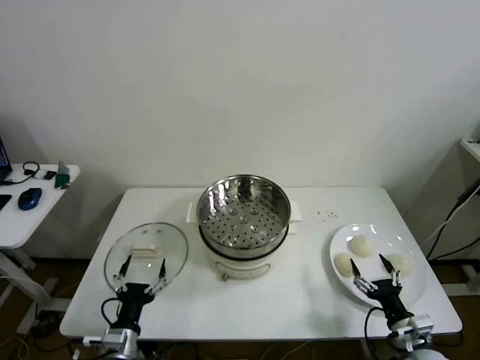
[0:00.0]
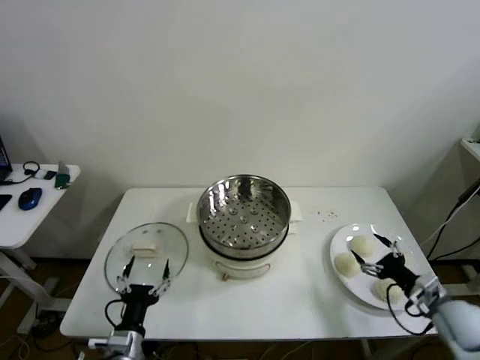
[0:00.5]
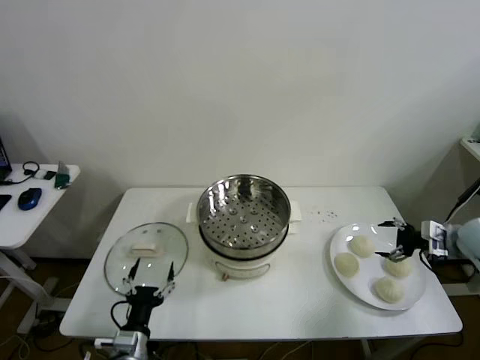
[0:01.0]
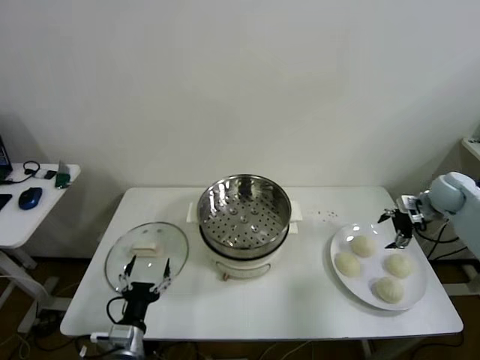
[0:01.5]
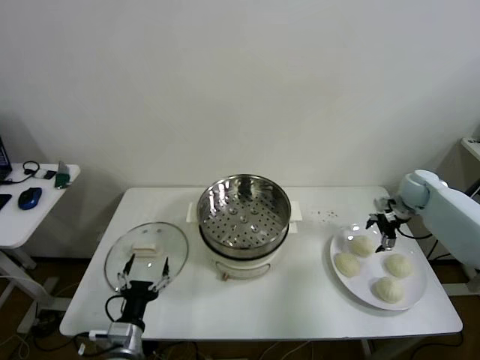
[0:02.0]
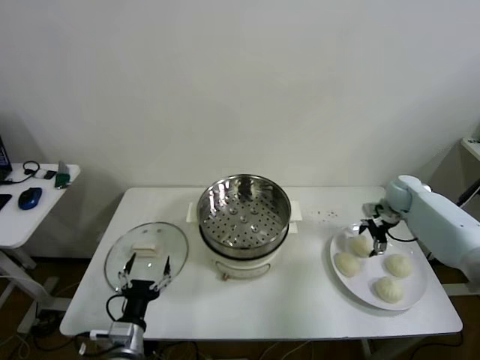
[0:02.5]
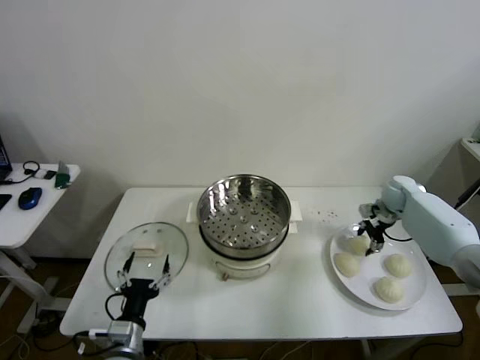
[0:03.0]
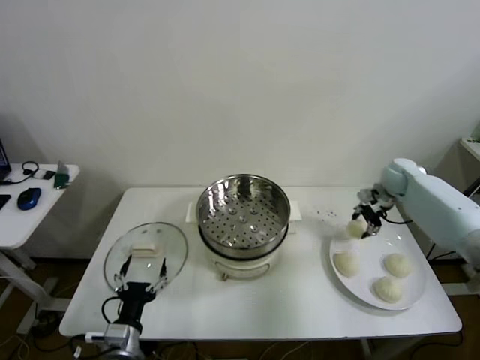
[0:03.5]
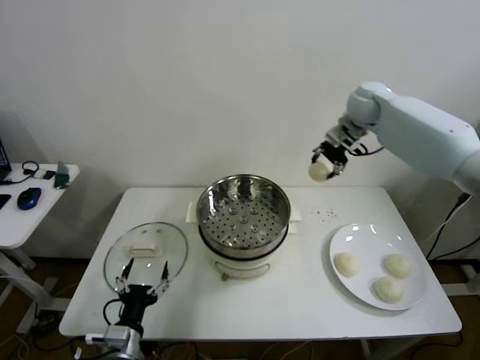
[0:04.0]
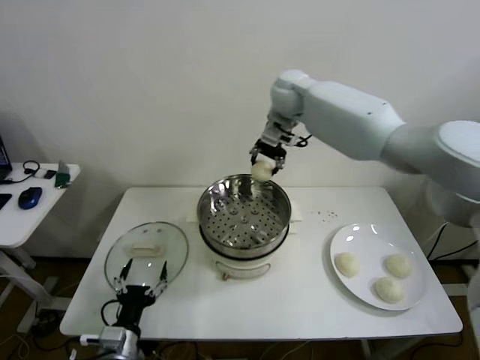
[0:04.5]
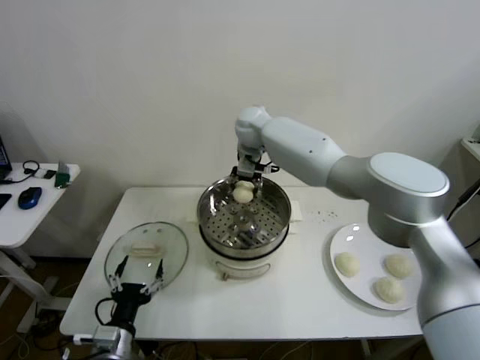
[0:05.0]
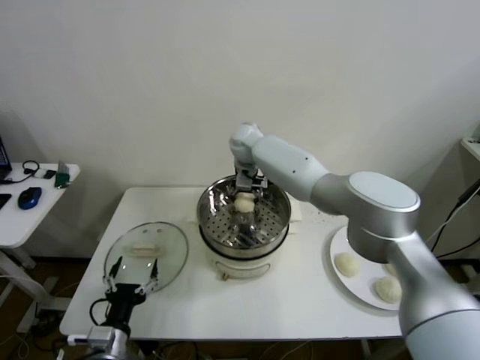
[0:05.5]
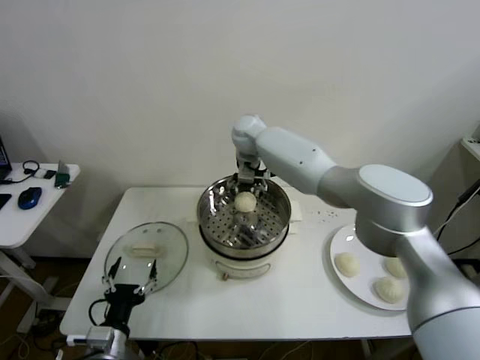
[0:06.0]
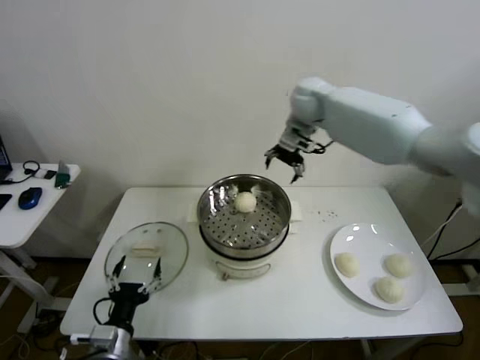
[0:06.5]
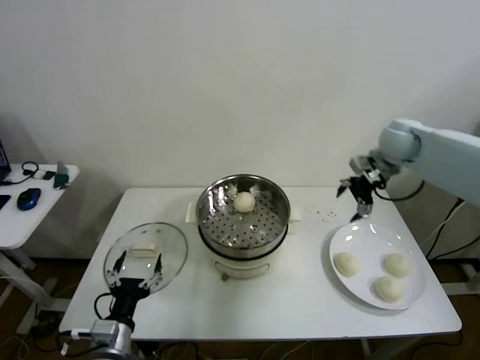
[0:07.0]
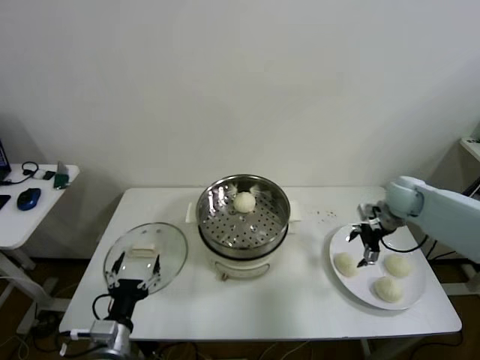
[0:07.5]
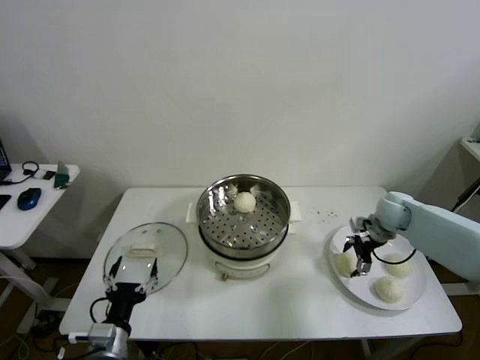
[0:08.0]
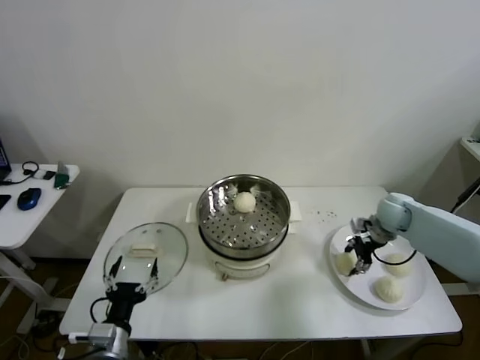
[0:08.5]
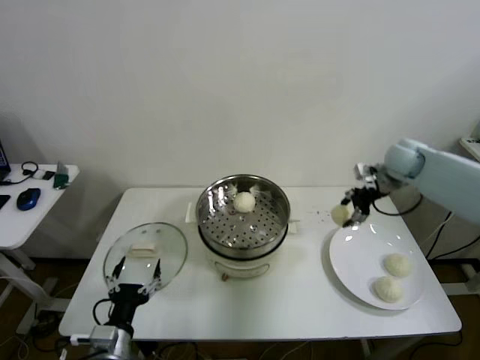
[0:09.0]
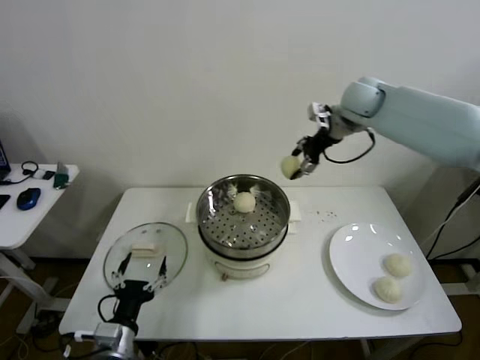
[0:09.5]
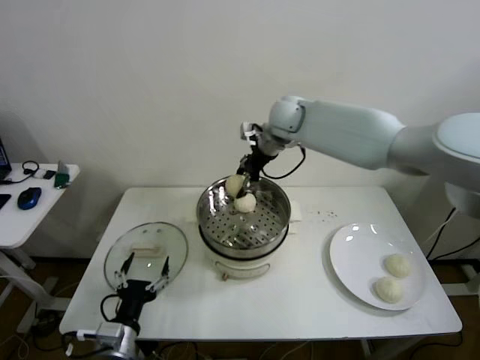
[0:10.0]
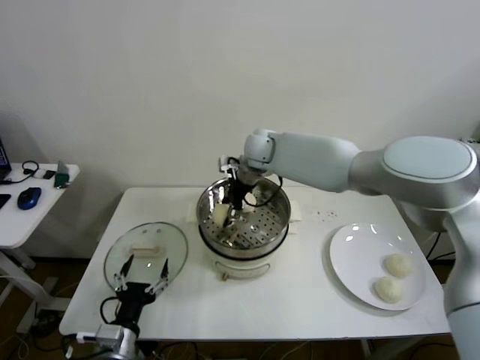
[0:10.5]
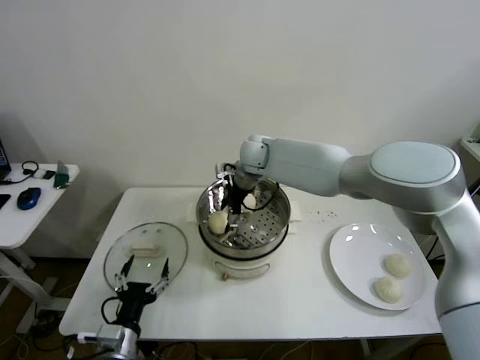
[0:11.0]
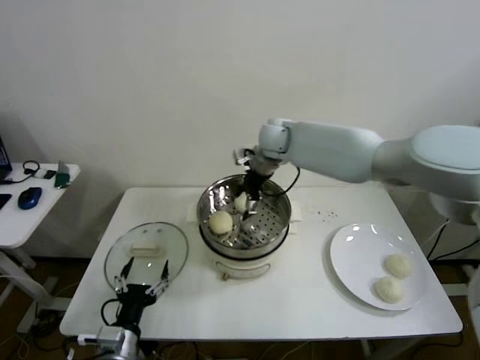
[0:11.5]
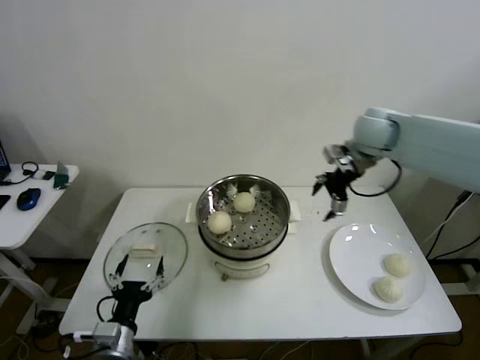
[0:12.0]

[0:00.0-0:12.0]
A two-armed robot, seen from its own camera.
Step, 0.0 to 3.0 s: Grasp the baozi in the plate with right gripper.
Step, 3.5 to 5.5 s: Place the baozi on the steamer with right gripper.
Step, 6.0 to 8.0 s: Grasp the baozi in the plate with right gripper.
Step, 8.5 to 11.0 s: Place the baozi on the steamer with right gripper.
2.0 to 4.0 s: The right gripper is displaced upward and to the left by some 25 cm, and closes up.
4.0 to 6.0 s: The right gripper heads to the left, covering some 25 cm, and opens up.
6.0 to 8.0 s: The right gripper shifts some 40 cm to the right and downward.
8.0 to 10.0 s: The right gripper is displaced to the left and upward by about 35 cm, and closes its fingers.
10.0 to 12.0 s: The right gripper goes about 15 cm to the right, and opens.

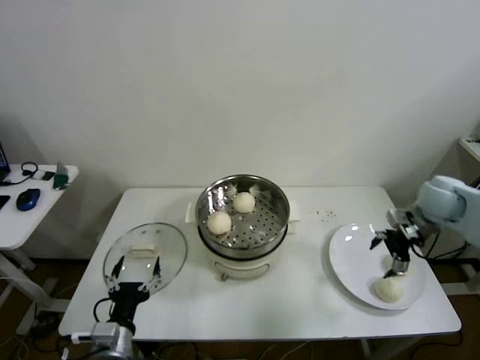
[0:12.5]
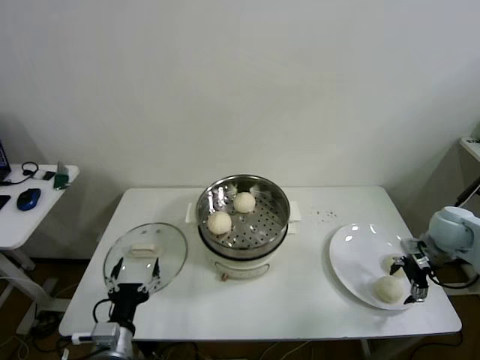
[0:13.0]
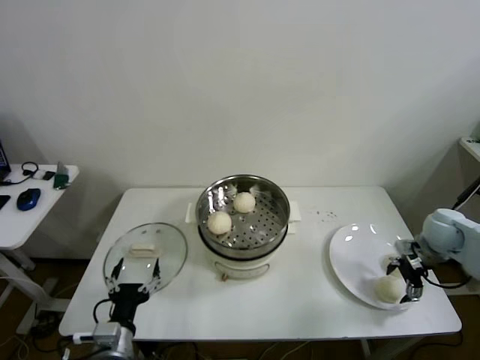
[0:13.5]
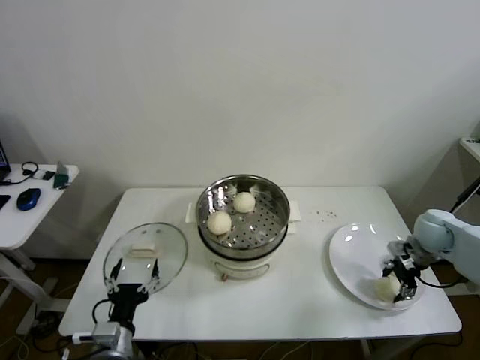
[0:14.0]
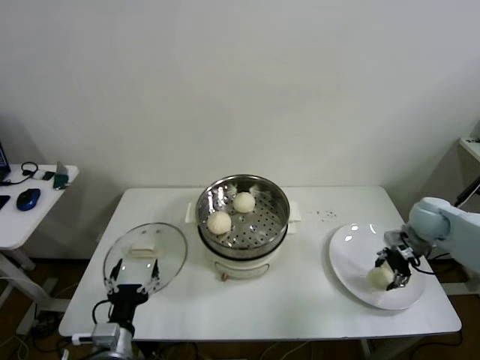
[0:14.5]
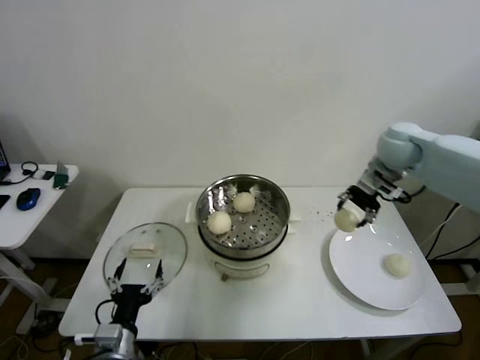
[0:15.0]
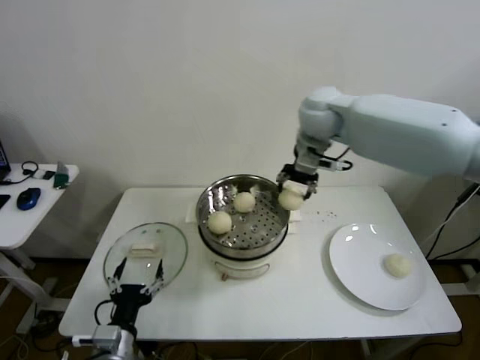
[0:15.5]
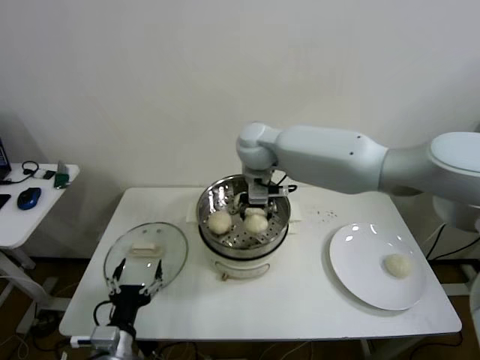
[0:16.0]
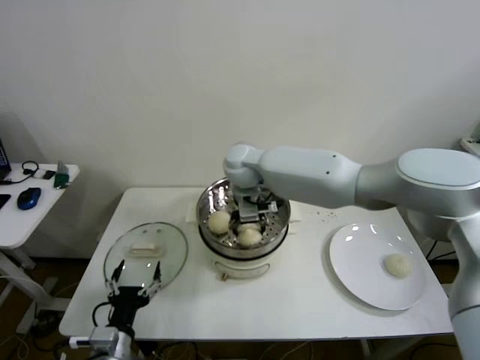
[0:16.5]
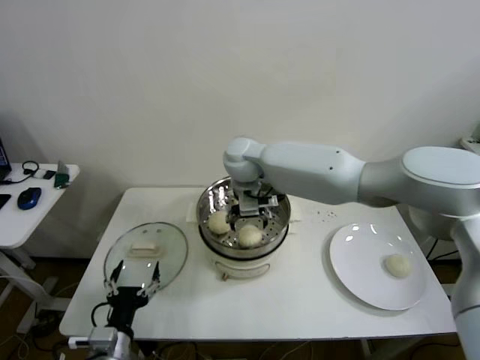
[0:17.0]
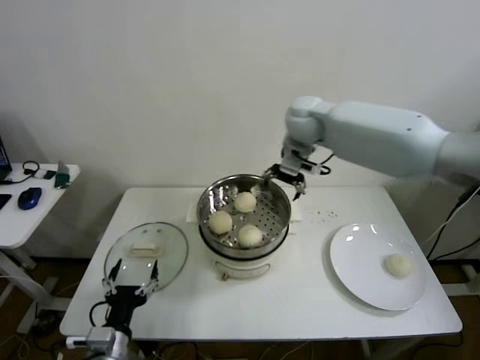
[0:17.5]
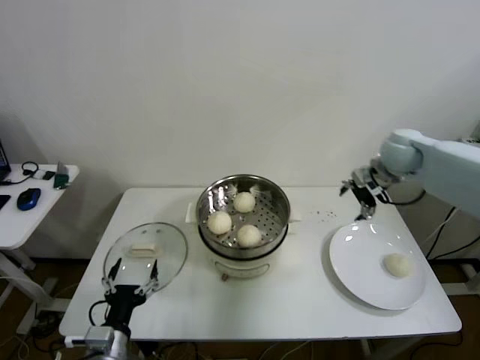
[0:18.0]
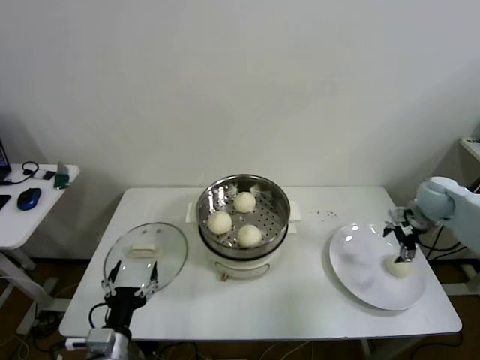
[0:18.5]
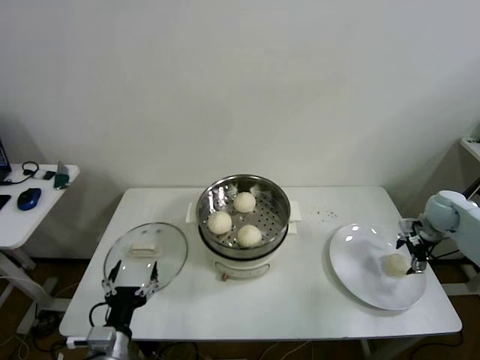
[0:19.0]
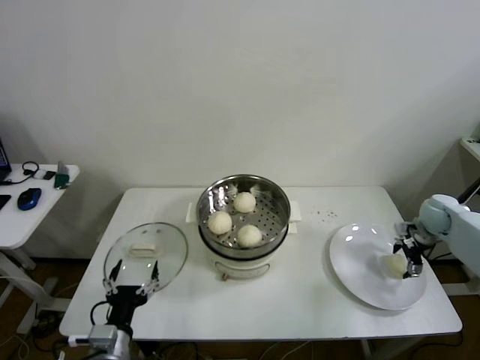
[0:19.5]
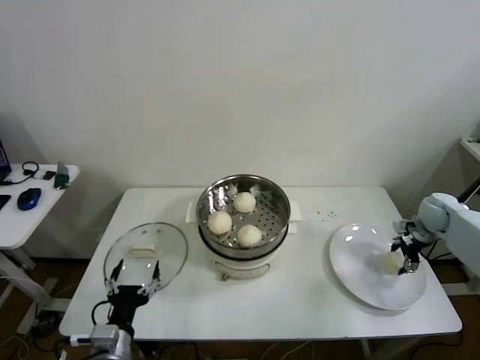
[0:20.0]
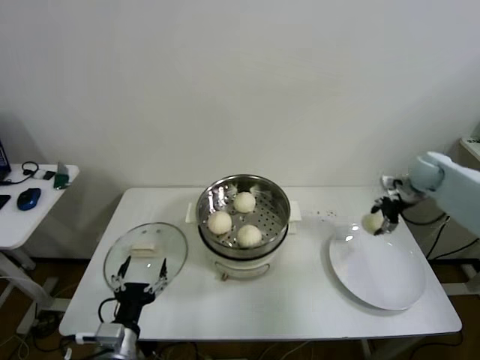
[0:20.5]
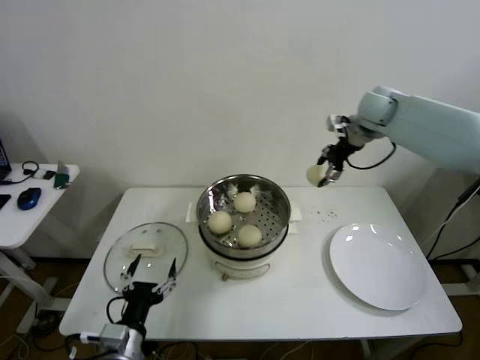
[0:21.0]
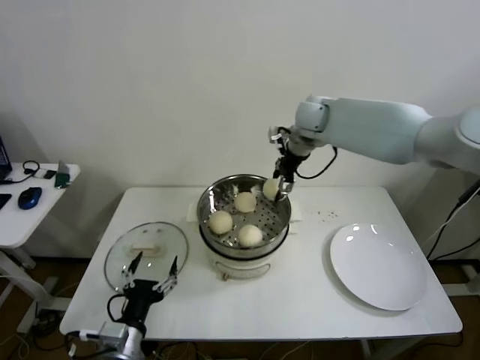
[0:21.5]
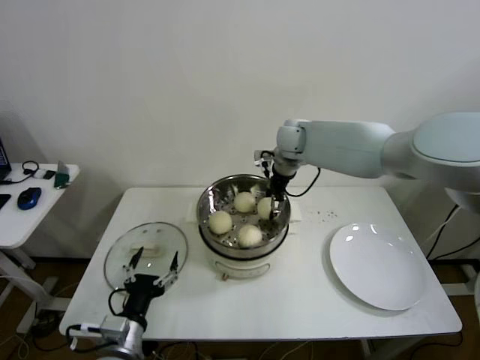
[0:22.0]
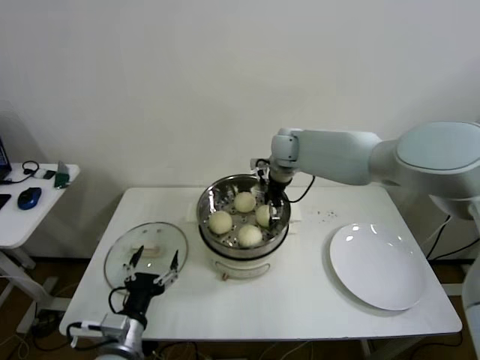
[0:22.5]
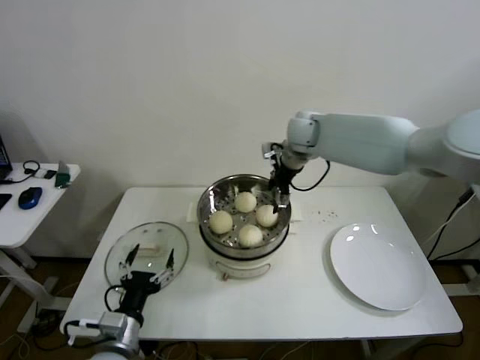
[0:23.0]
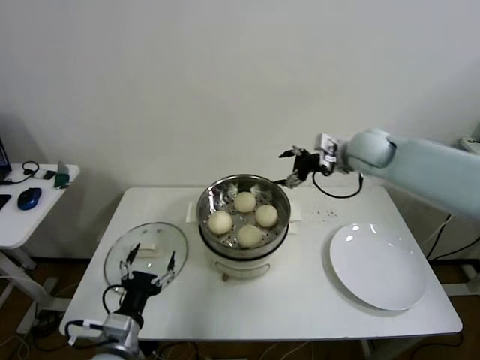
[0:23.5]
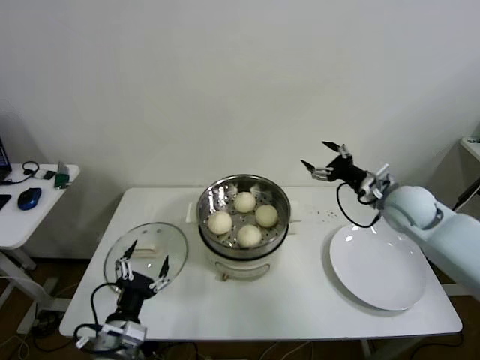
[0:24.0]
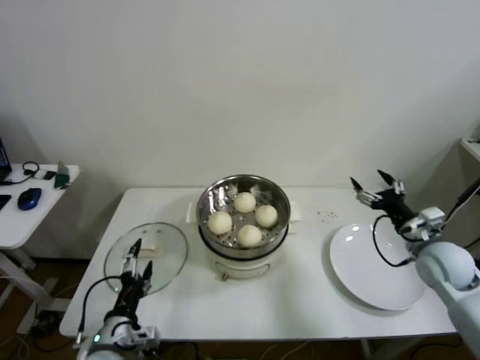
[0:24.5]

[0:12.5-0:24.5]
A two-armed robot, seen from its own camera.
Step, 12.5 to 14.0 s: Grasp the baozi in the plate with right gripper.
Step, 14.5 to 16.5 s: Place the baozi on the steamer with right gripper.
Step, 17.0 to 19.5 s: Grasp the baozi in the plate with right gripper.
Step, 20.0 to 22.5 s: Place the baozi on the steamer with right gripper.
12.5 to 14.5 s: The right gripper heads downward, covering about 10 cm, and closes up.
14.5 to 16.5 s: The right gripper goes roughly 50 cm to the left.
16.5 to 18.5 s: The right gripper travels to the right by roughly 50 cm, and opens its fingers.
18.5 to 20.5 s: The right gripper is displaced forward by roughly 5 cm, moves about 5 cm downward and comes back, and closes its fingers.
20.5 to 22.5 s: The right gripper heads to the left, covering roughly 35 cm, and opens its fingers.
22.5 to 24.5 s: The right gripper is displaced to the right and backward by about 40 cm.

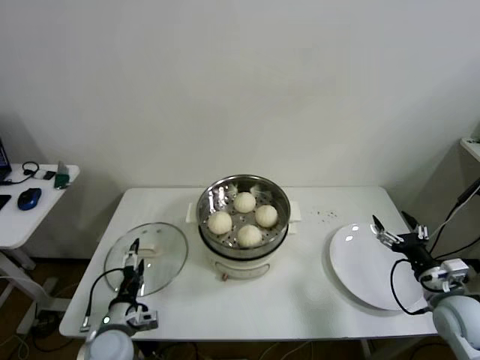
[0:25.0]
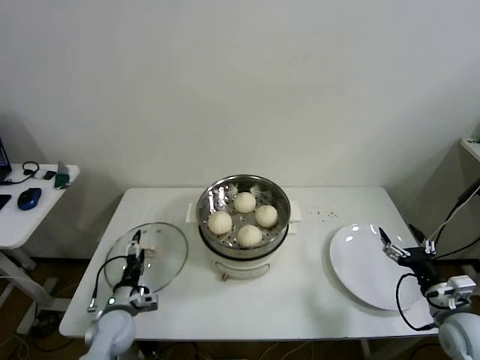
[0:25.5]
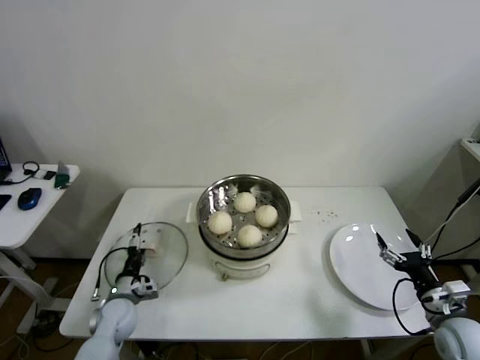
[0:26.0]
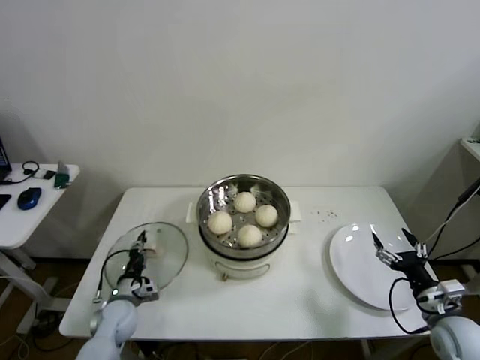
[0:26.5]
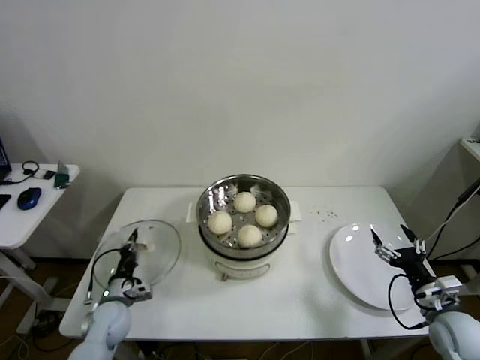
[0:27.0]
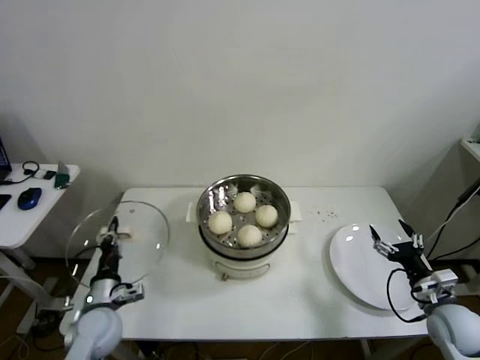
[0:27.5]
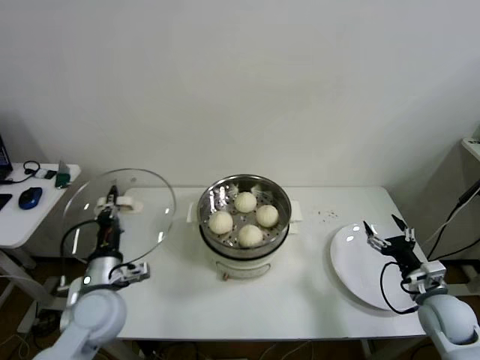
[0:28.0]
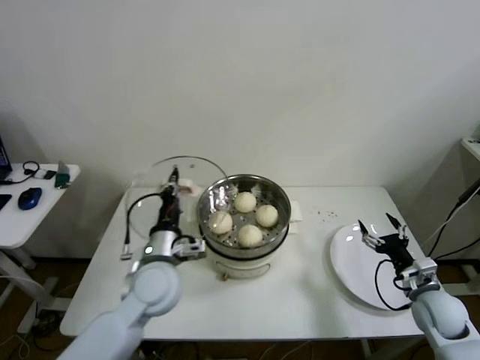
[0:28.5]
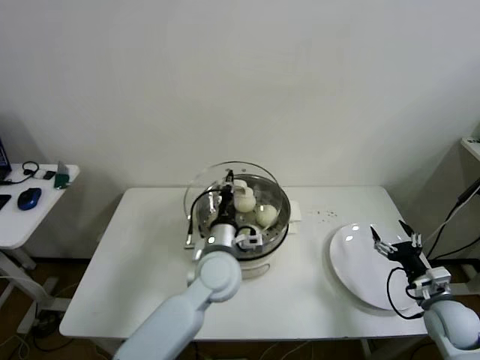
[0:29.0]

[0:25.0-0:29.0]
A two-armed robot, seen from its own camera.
25.0 to 27.0 s: The left gripper shifts about 10 cm forward and downward, and closes up.
27.0 to 29.0 s: The left gripper travels to the right and upward by some 35 cm.
